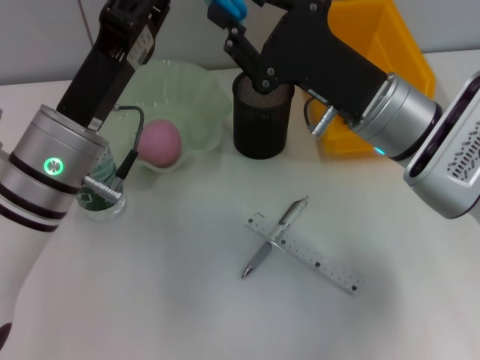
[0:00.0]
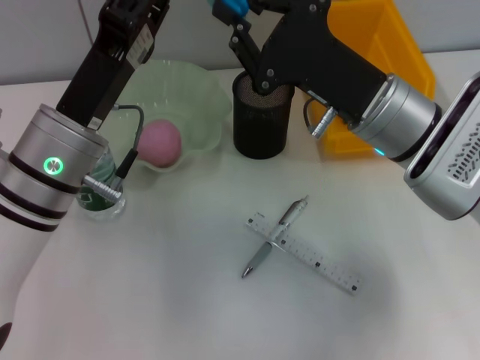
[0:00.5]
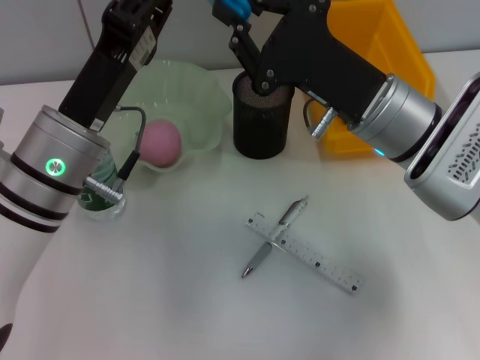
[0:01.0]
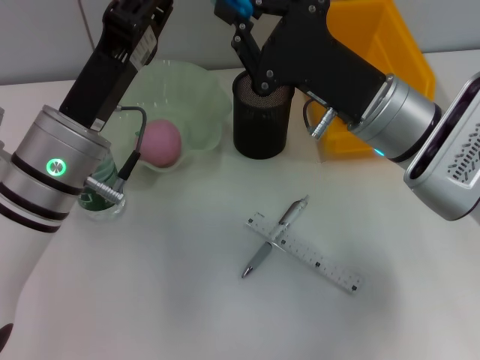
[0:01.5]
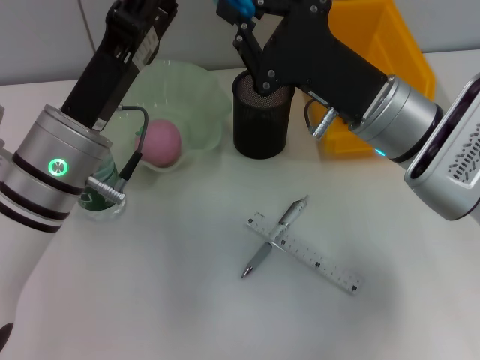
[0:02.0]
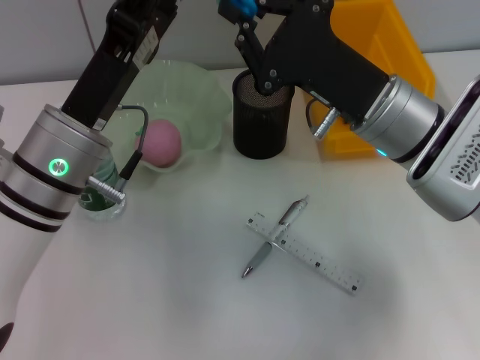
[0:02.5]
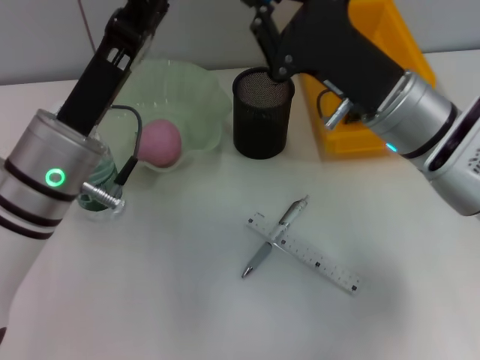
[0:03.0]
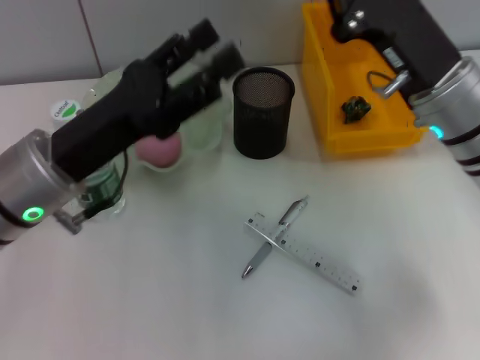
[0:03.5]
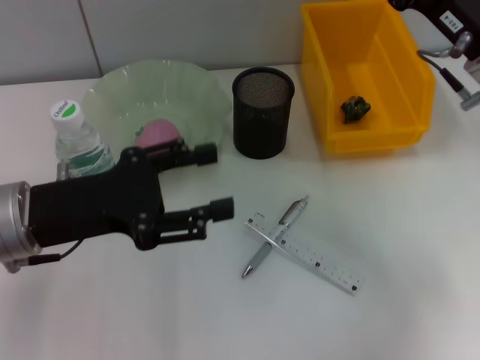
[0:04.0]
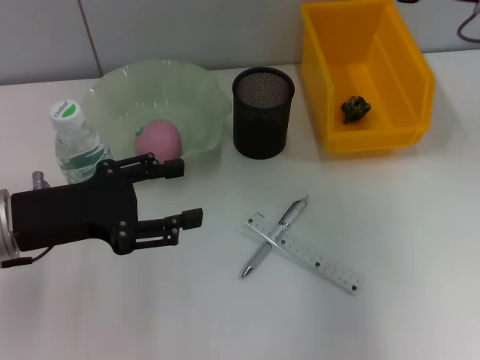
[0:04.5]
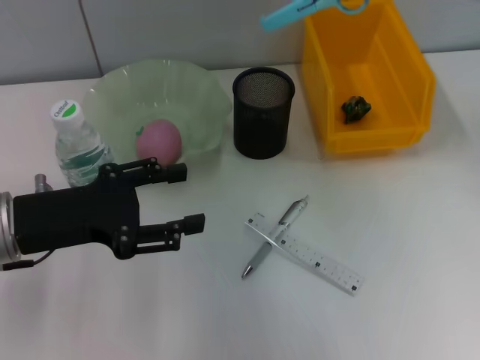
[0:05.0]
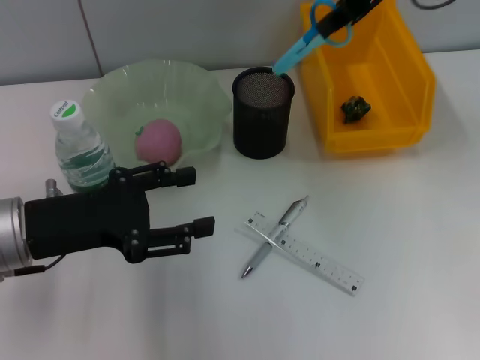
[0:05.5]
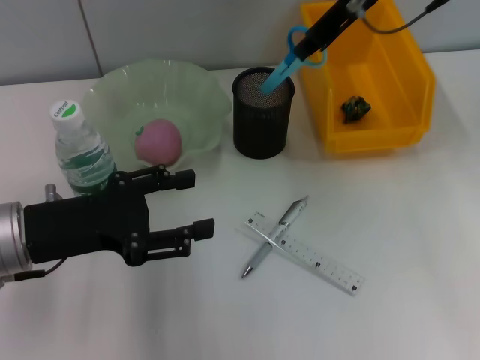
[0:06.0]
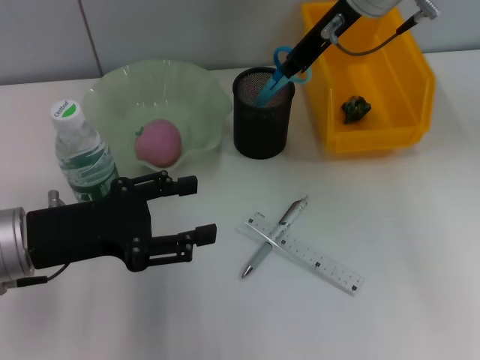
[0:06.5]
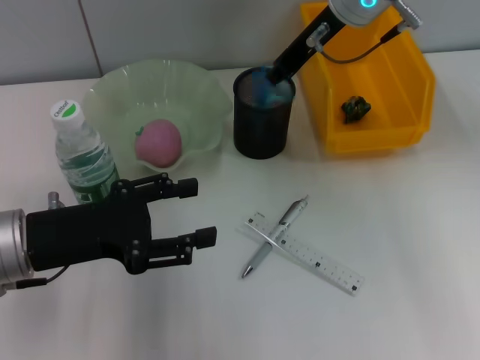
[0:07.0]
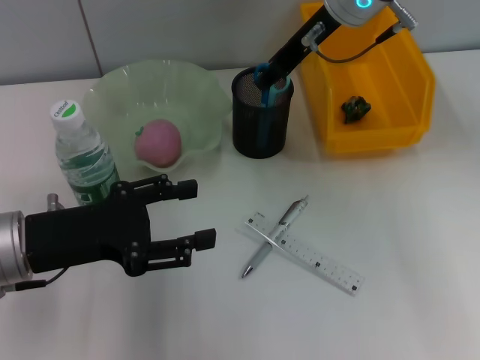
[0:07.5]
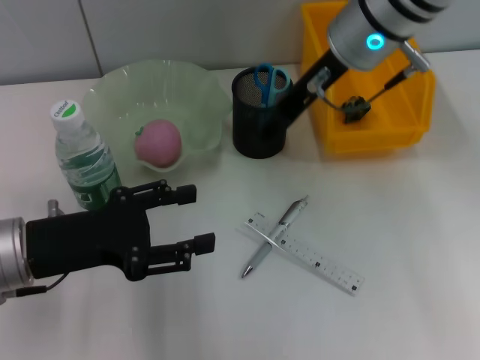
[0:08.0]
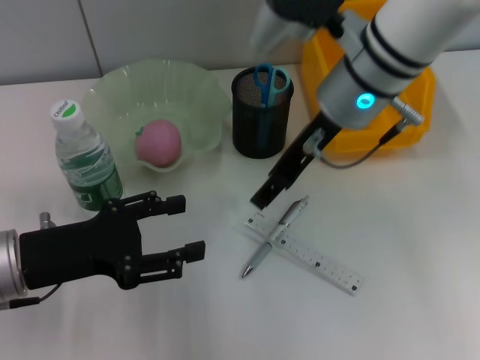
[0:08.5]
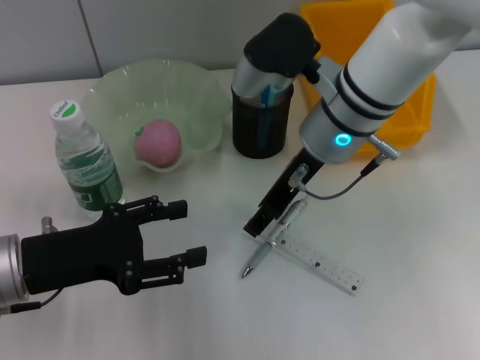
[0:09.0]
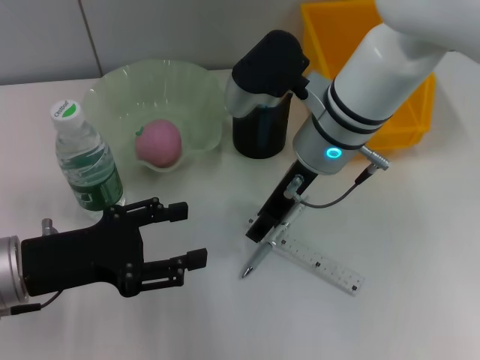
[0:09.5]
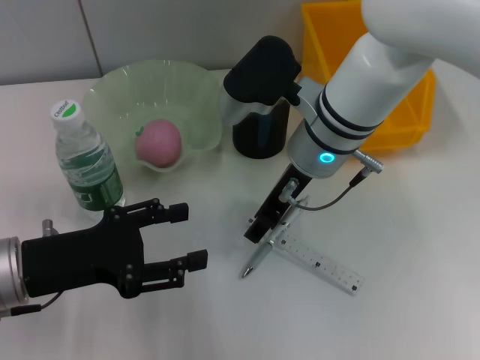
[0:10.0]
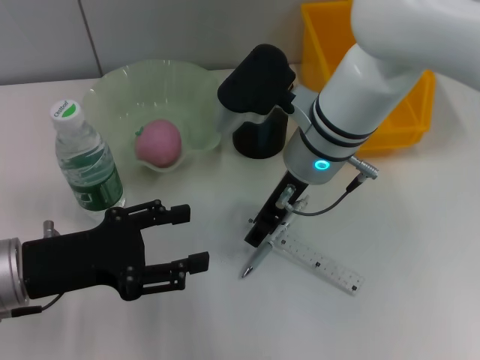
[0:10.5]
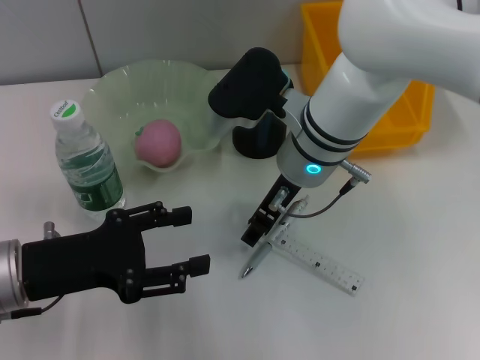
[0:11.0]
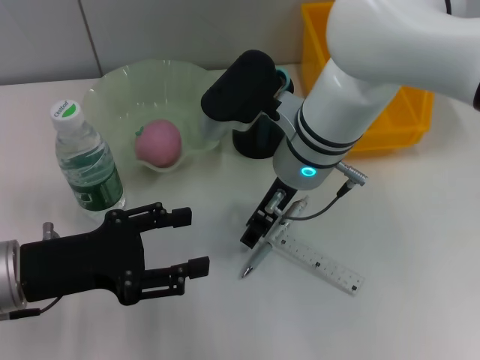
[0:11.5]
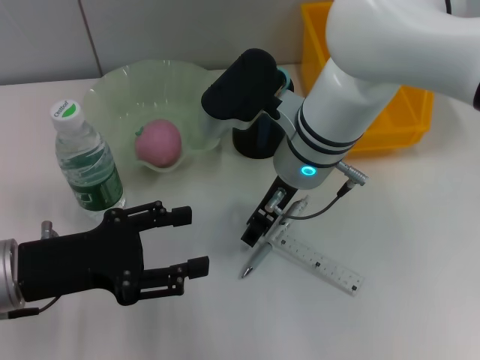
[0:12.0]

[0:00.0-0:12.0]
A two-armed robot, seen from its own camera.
Step, 0:00.0 to 0:03.0: Pass the blue scissors from the left hand to the right hand.
Step, 0:03.5 to 0:07.5: Place the blue scissors into the pen holder with the right hand.
0:00.0 to 0:02.0: The right gripper closes.
0:02.0 to 0:04.0: The right gripper moves to the right, about 10 cm. Meanwhile the left gripper moves to the left, about 5 cm, and opens up.
0:04.0 to 0:06.0: The right gripper travels upward, forward and to the left by approximately 15 cm.
0:06.0 to 0:08.0: The right gripper ends up about 5 cm from where it was, and opens up.
0:08.0 to 0:10.0: The right gripper shifts approximately 10 cm downward.
0:10.0 to 0:12.0: The grippers move only a little.

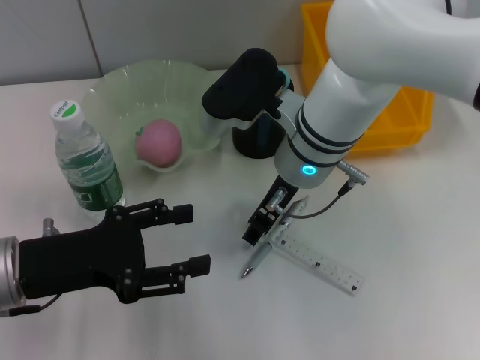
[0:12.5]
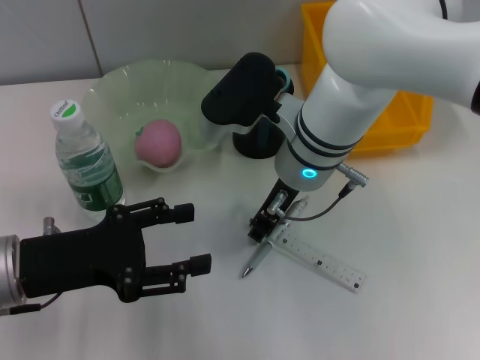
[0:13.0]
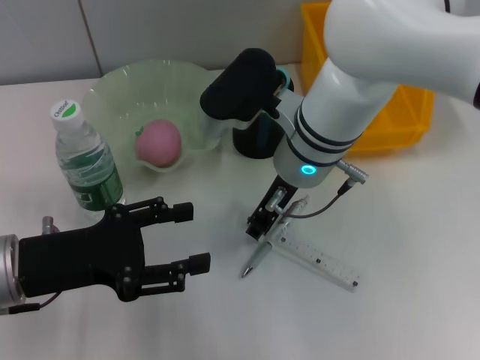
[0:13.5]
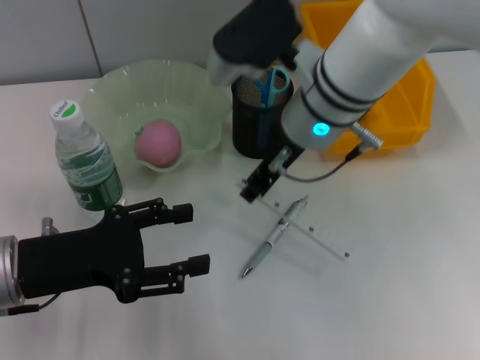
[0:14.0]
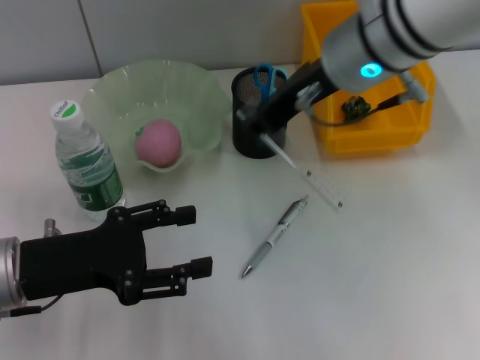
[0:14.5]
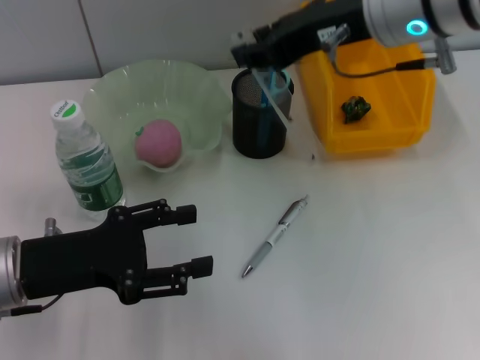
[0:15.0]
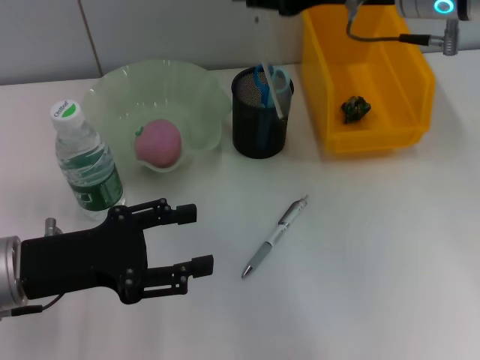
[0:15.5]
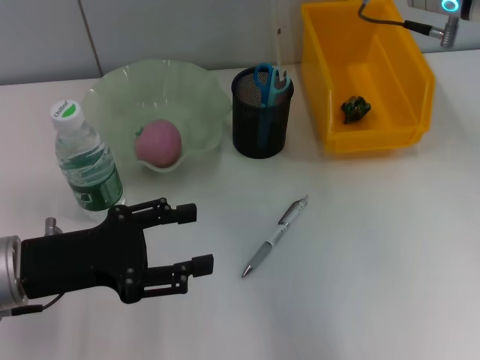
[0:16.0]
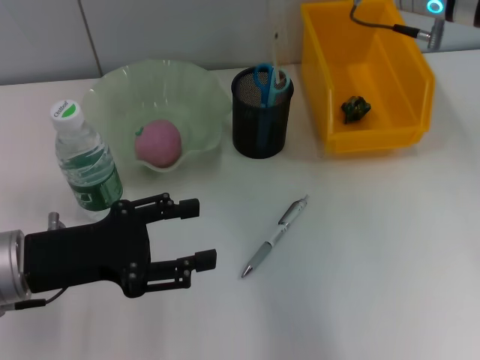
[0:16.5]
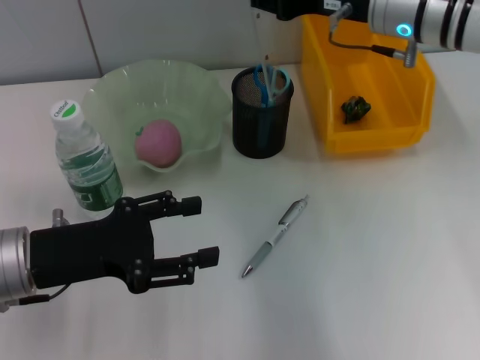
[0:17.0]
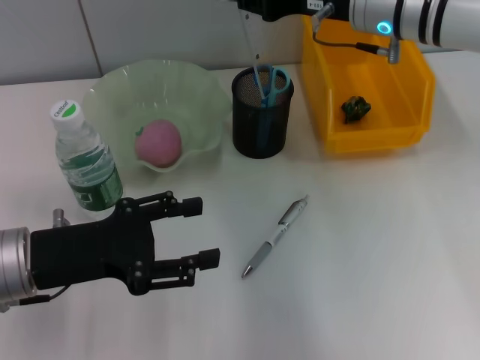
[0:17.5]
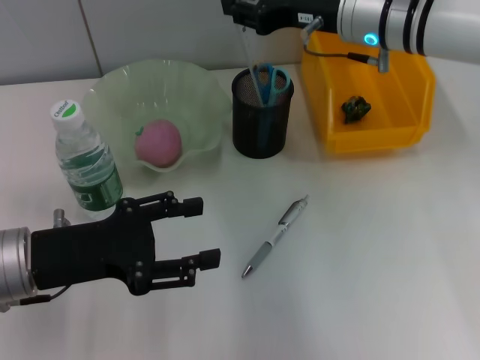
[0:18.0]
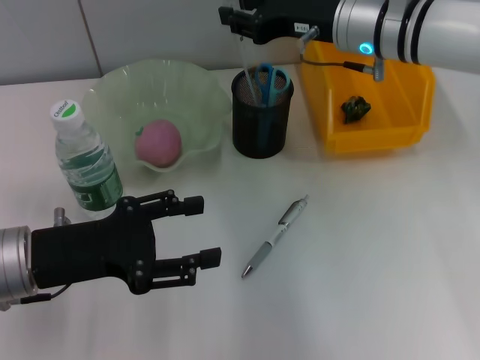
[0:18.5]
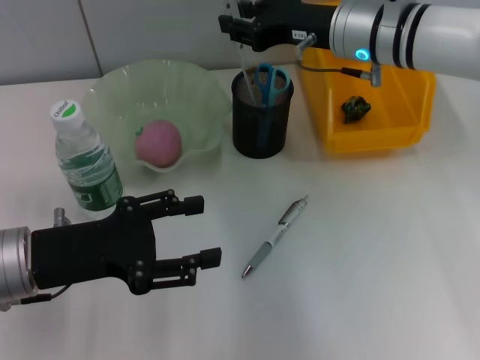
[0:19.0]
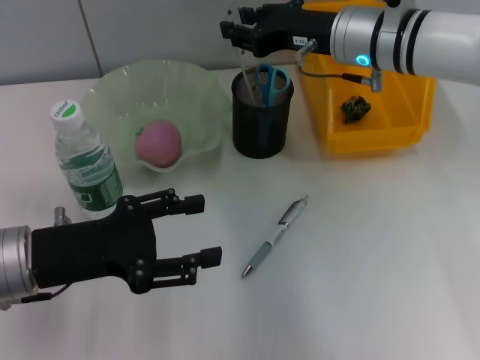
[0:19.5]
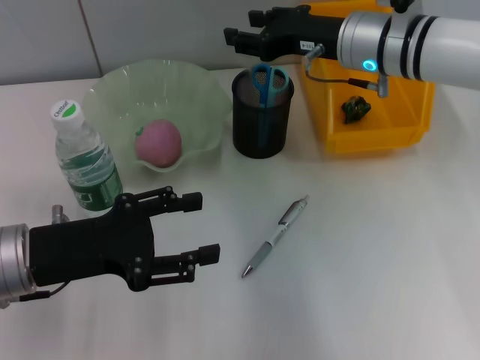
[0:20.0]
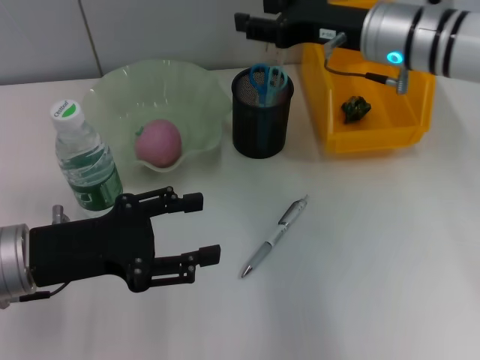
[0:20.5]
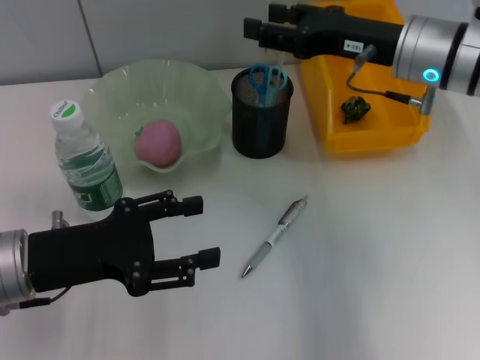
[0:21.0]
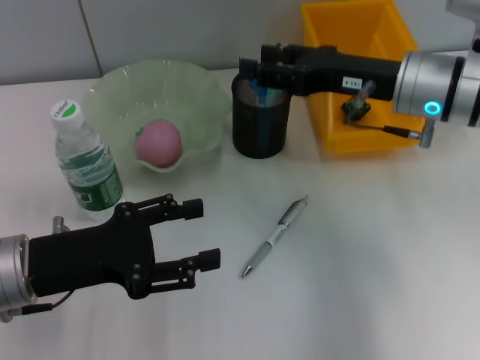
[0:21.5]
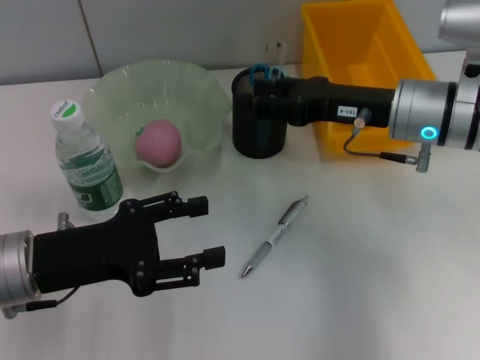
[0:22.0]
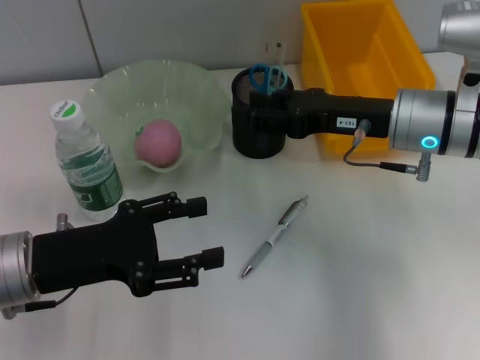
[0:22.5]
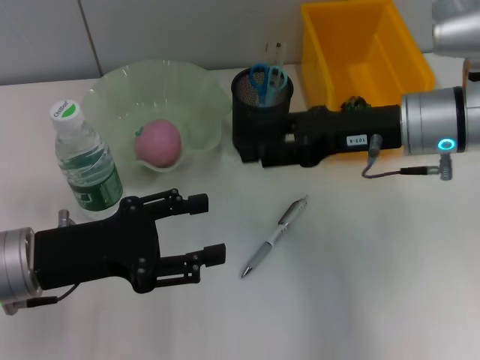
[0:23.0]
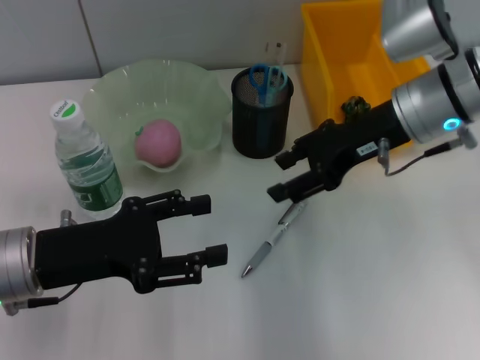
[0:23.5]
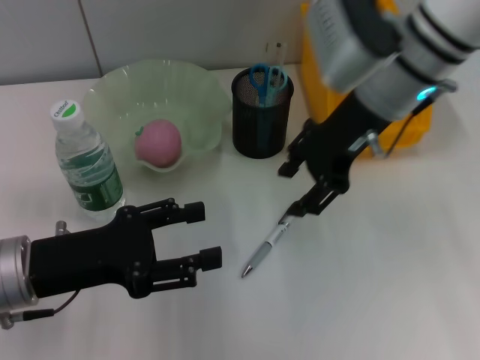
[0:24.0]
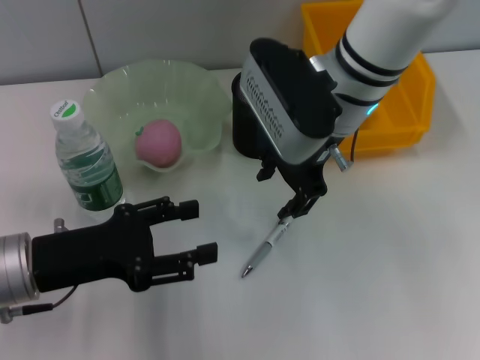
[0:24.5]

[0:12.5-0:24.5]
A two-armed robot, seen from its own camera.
Step, 0:13.5 to 0:20.0: Place the ruler into the pen holder with the right hand.
0:12.5 to 0:14.5: The right gripper shifts approximately 10 cm upward, and closes its fingers.
0:14.5 to 0:16.5: The right gripper is displaced to the right by some 10 cm.
0:16.5 to 0:18.5: The right gripper travels downward by about 5 cm.
0:18.5 to 0:20.5: There are only small adjustments of the grippers.
0:20.5 to 0:22.5: The right gripper heads backward, covering roughly 5 cm.
0:22.5 to 0:24.5: The right gripper moves to the left and upward, roughly 10 cm.

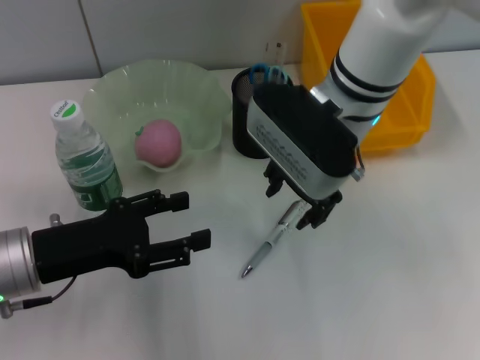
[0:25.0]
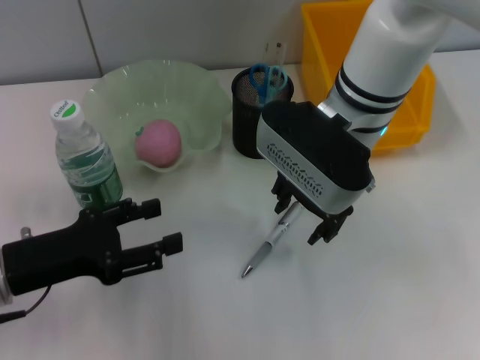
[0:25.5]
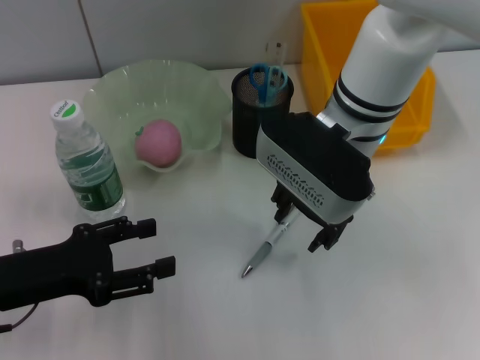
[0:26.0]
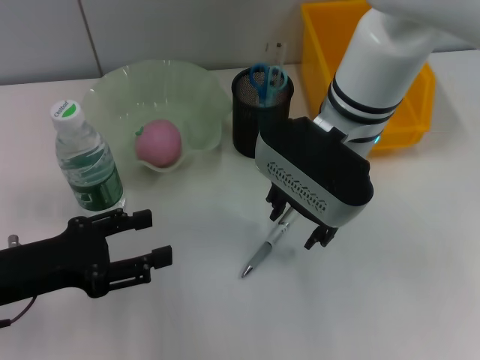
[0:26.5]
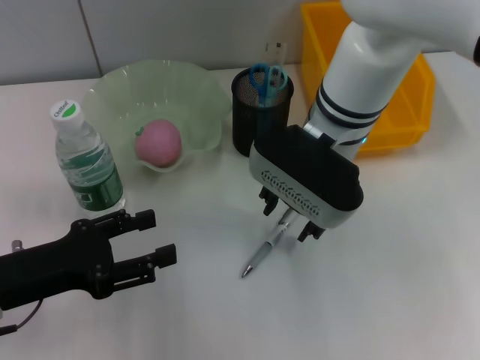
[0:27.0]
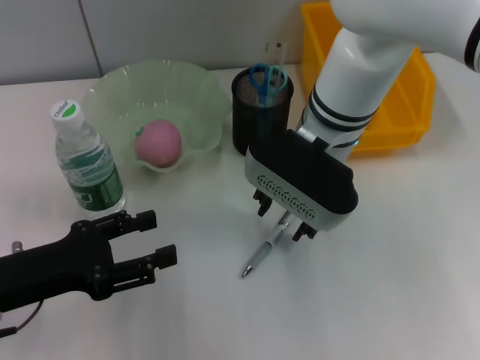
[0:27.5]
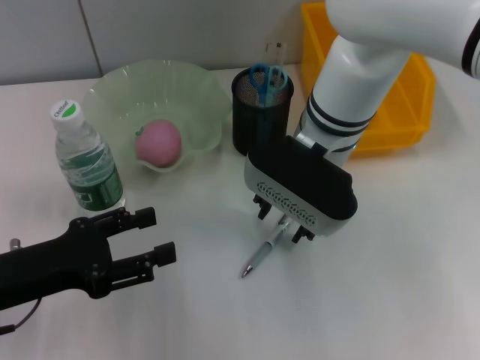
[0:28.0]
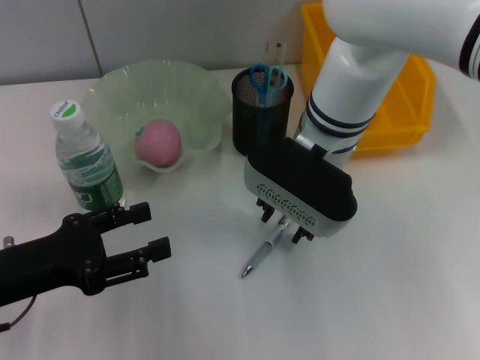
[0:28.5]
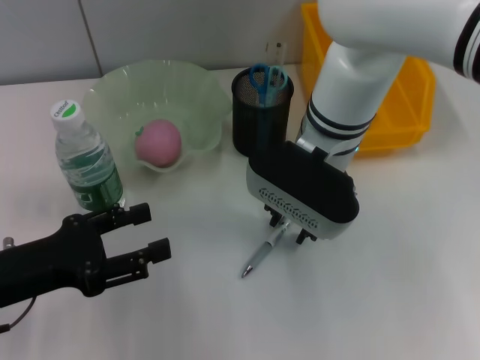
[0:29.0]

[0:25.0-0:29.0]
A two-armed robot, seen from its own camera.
0:25.0 to 0:27.0: The grippers stay close to where they were, moving slightly.
0:27.0 to 0:29.0: Both grippers stay about where they are.
